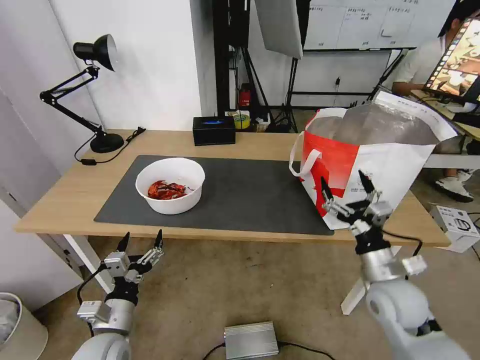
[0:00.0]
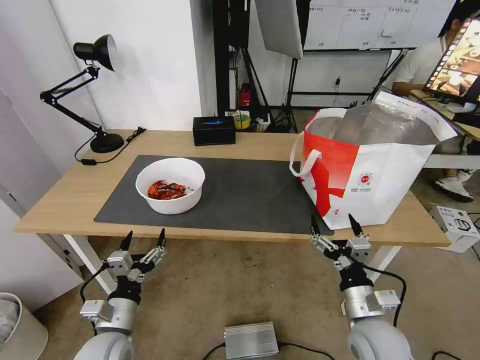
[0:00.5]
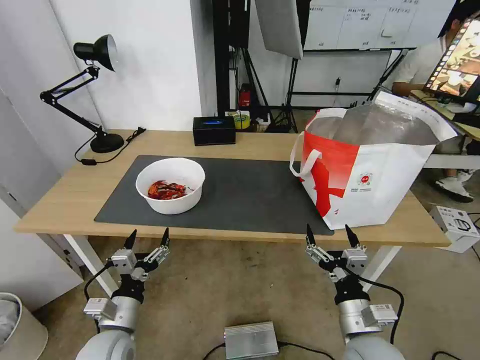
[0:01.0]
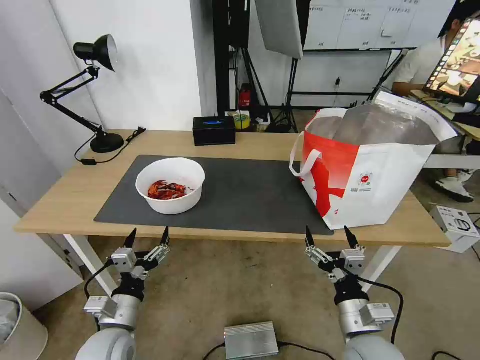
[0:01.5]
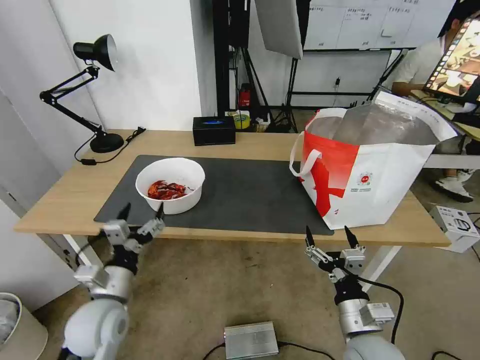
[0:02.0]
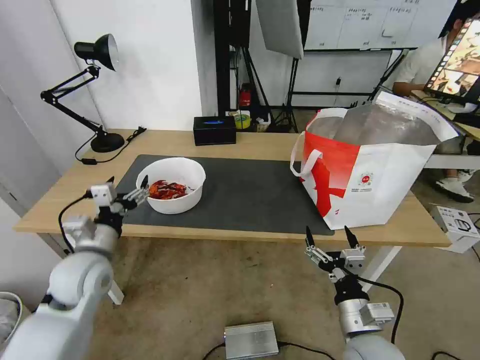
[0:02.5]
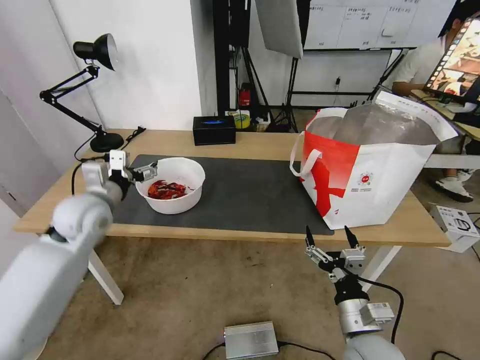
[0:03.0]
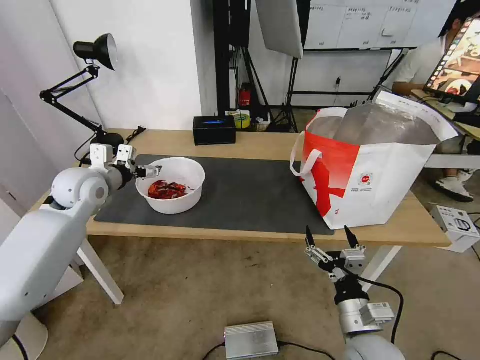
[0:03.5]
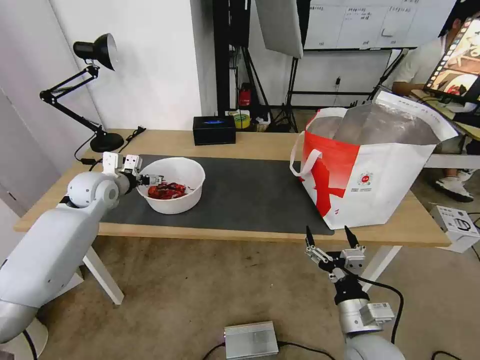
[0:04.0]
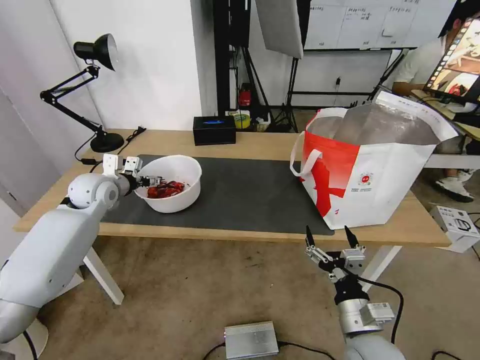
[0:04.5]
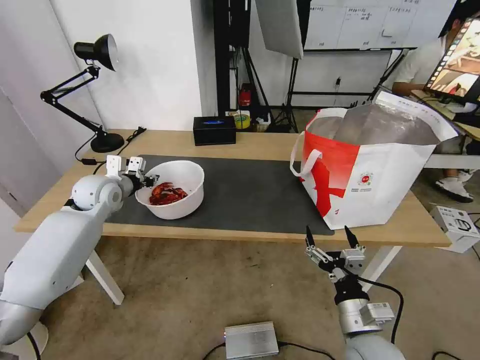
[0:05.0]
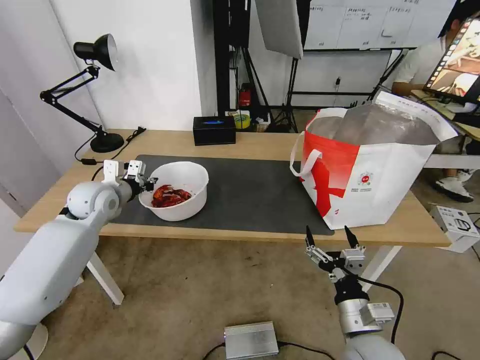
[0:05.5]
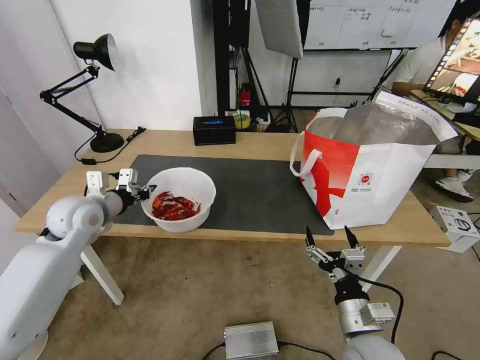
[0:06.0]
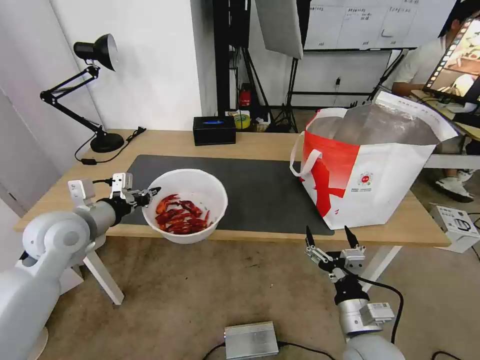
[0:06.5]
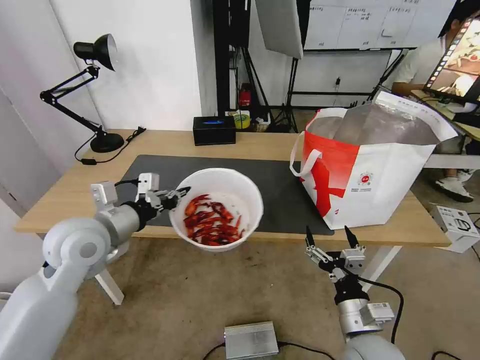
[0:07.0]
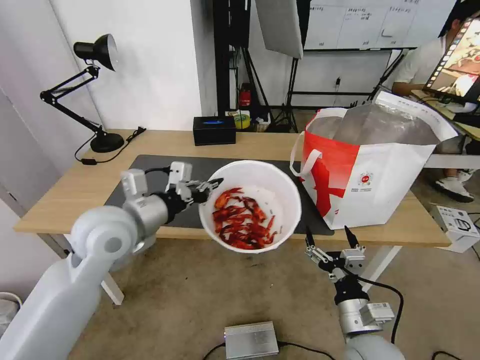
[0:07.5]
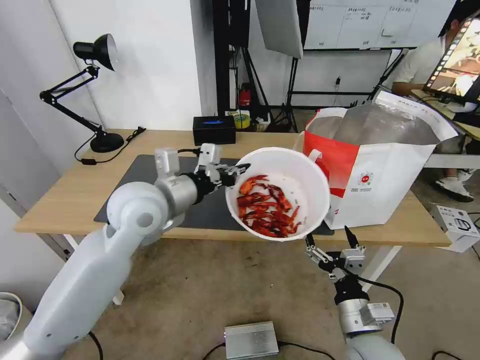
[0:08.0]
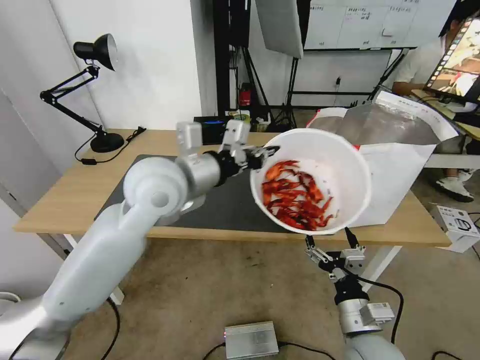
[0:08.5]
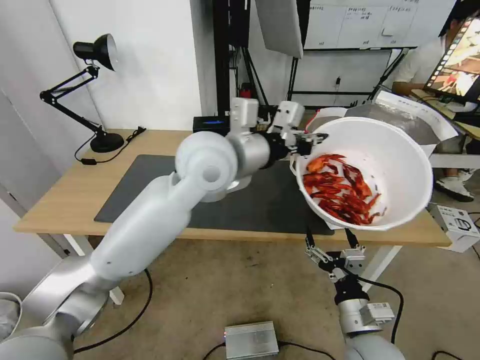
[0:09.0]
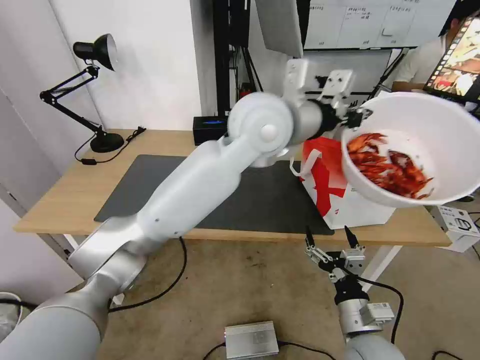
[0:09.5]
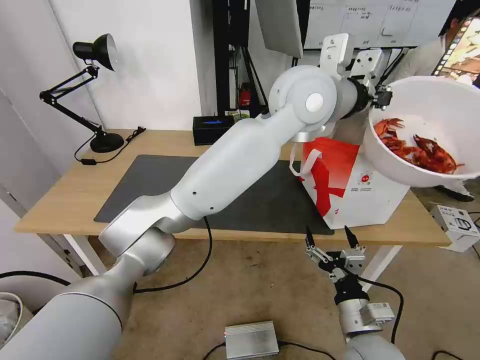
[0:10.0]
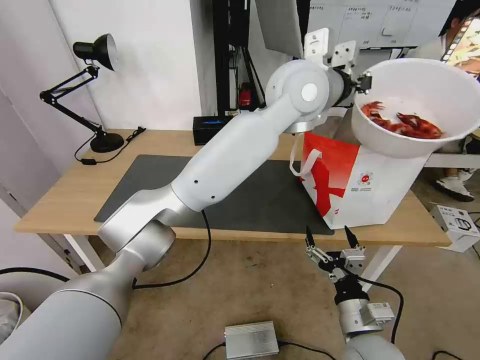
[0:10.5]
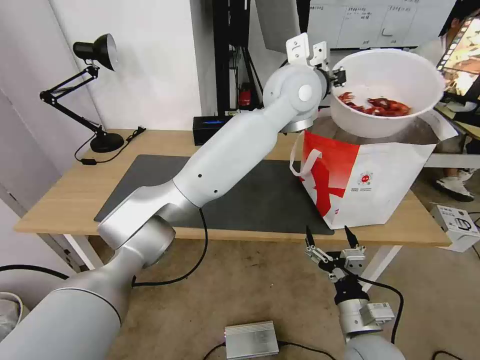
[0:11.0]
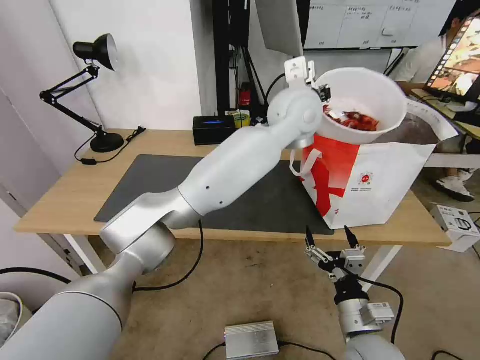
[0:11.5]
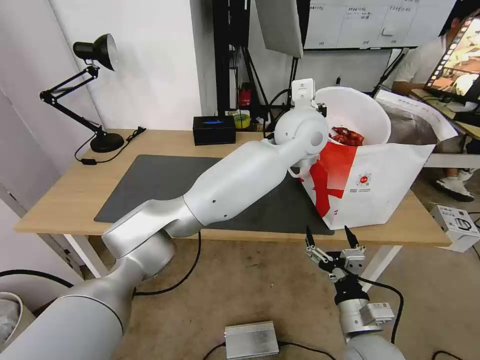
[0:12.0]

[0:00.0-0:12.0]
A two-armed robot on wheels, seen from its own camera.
Task of the whole recording: Pick up the trash from the table and place it into the takeout bag.
0:00.0 to 0:02.0: The right gripper heads backward and to the left, covering approximately 10 cm; the left gripper moves upward, approximately 5 cm.
0:02.0 to 0:04.0: The left gripper moves forward, roughly 25 cm.
0:04.0 to 0:06.0: The left gripper is displaced backward by roughly 10 cm, and closes up.
0:06.0 to 0:08.0: The left gripper shifts some 20 cm to the right and upward.
0:08.0 to 0:10.0: The left gripper heads to the right and upward, covering about 30 cm.
0:10.0 to 0:12.0: The left gripper moves downward, some 10 cm.

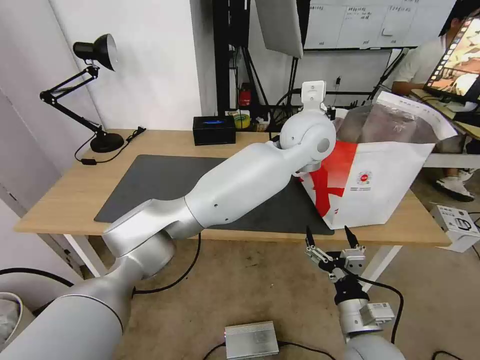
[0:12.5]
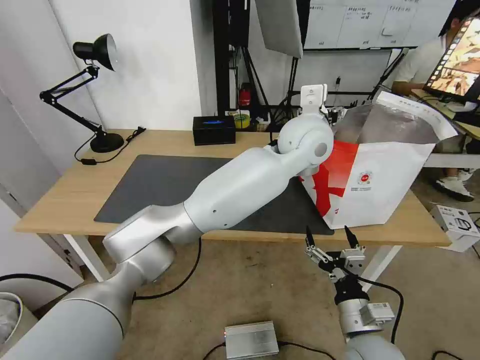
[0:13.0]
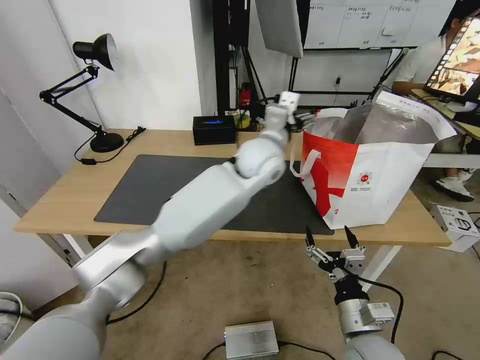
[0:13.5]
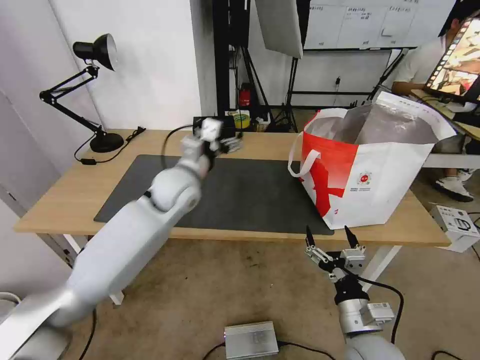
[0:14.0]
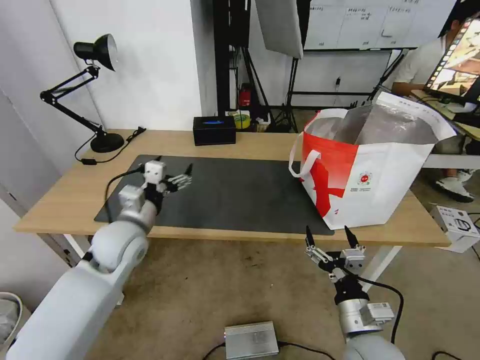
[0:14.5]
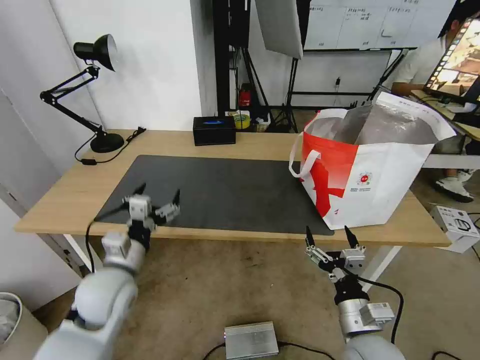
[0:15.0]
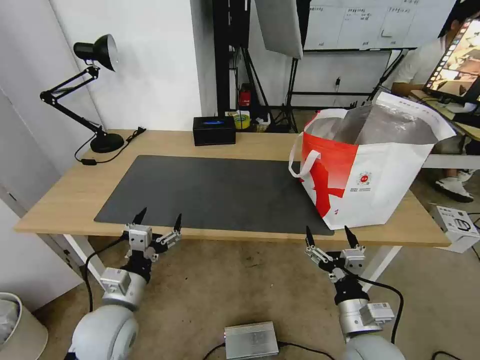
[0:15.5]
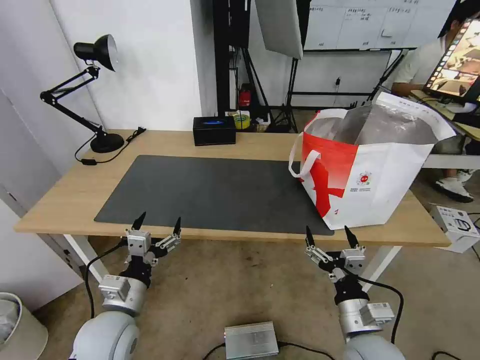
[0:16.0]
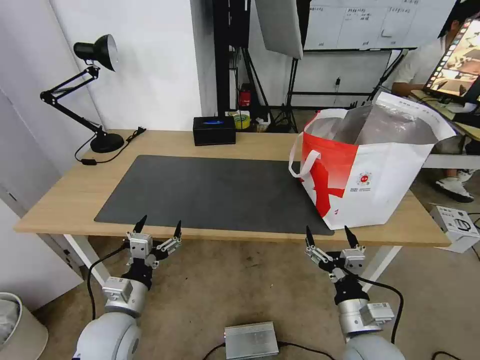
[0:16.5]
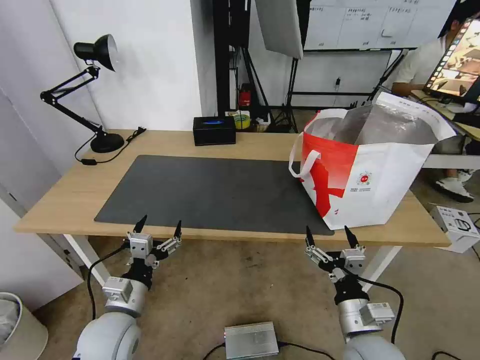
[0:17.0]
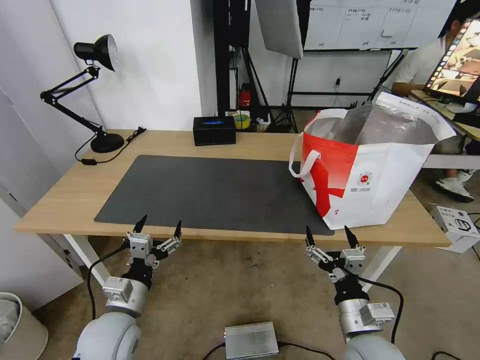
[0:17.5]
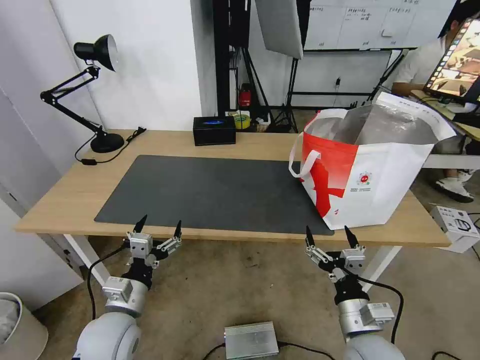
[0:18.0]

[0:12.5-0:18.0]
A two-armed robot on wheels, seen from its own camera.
Task of the whole recording: Pick up the trash from the table and place it into the takeout bag.
0:12.5 to 0:14.5: The left gripper travels to the left and downward by approximately 40 cm, and opens up.
0:14.5 to 0:16.0: The left gripper is displaced backward and downward by approximately 15 cm.
0:16.0 to 0:18.0: Neither gripper changes place.
